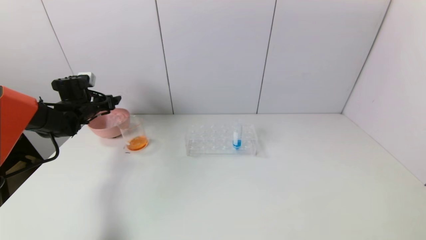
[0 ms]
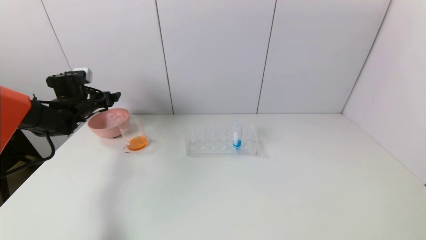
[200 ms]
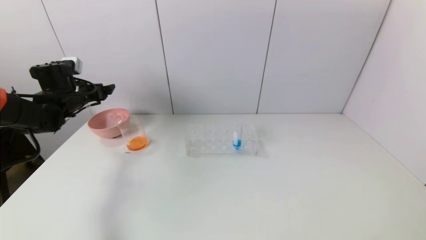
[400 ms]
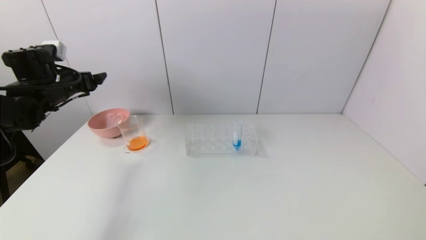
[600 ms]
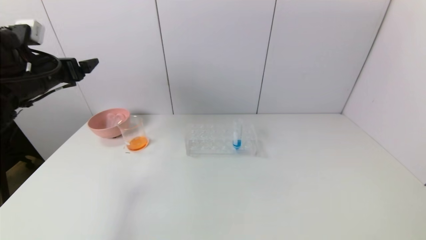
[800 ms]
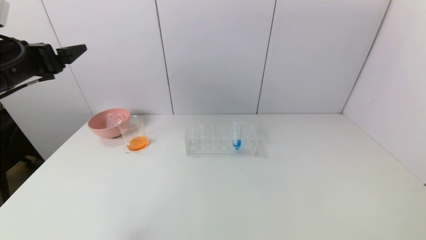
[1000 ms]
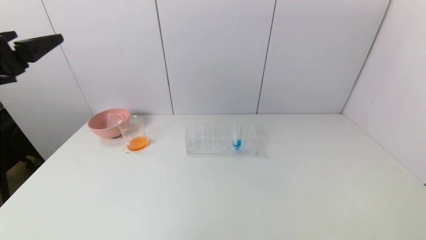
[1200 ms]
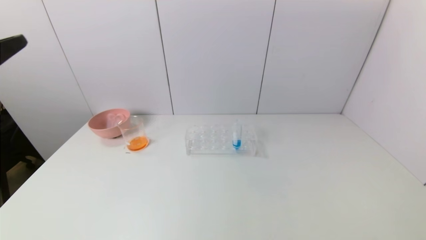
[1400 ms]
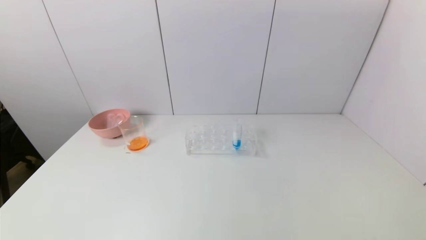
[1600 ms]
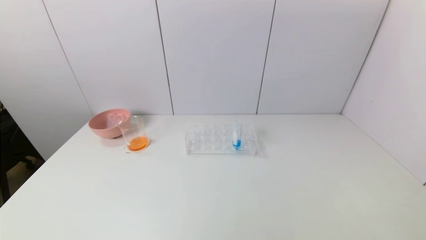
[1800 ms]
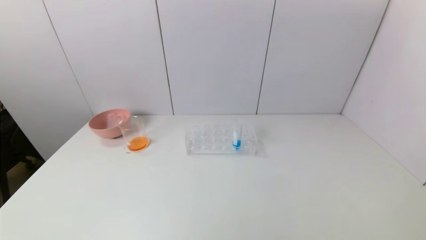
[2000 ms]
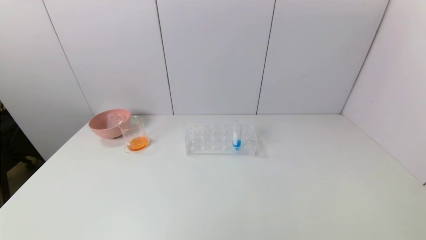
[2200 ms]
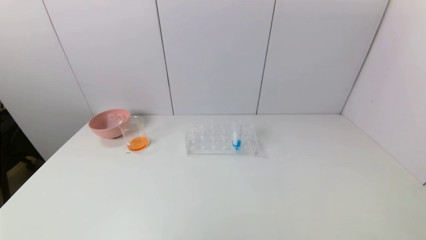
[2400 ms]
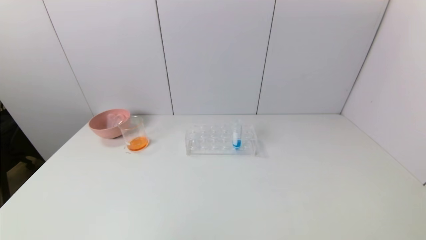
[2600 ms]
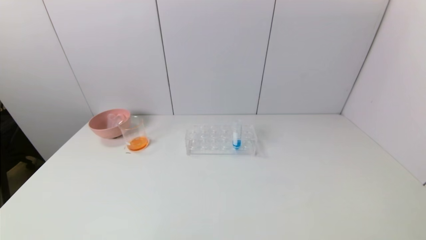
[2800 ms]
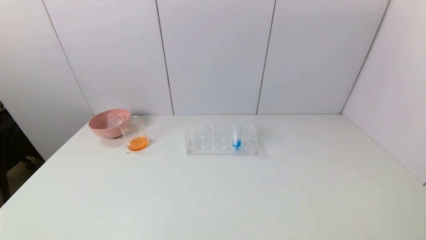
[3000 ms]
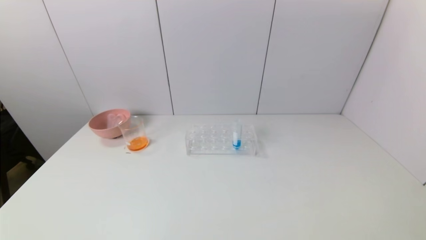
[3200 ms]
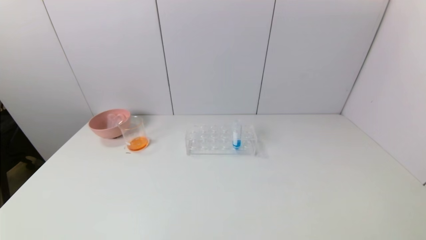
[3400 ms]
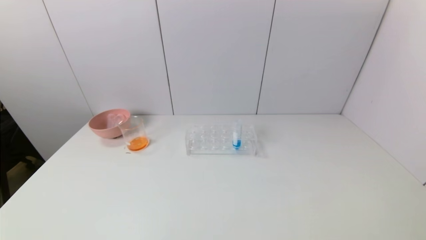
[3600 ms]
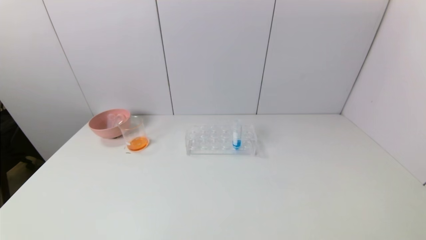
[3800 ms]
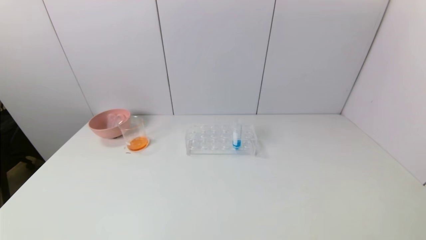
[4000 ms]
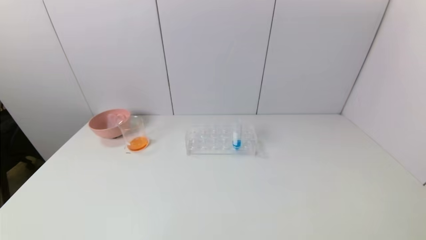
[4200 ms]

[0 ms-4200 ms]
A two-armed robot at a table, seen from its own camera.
Task of the whole recording: pick up the test tube with yellow pigment and the test tube with red pigment by grippers and pour them into the beaker.
0 ms to 1400 ms: The left gripper goes some 40 cm backward and upward.
1400 ms to 2800 ms: The left gripper heads downward and backward, covering about 25 cm.
